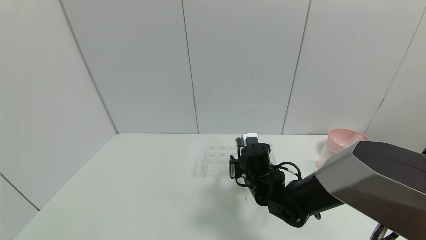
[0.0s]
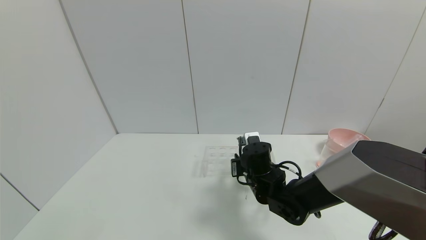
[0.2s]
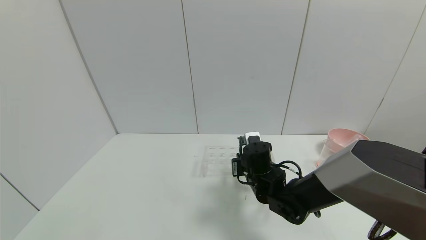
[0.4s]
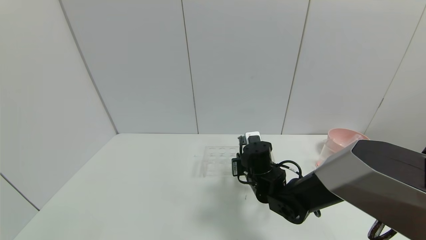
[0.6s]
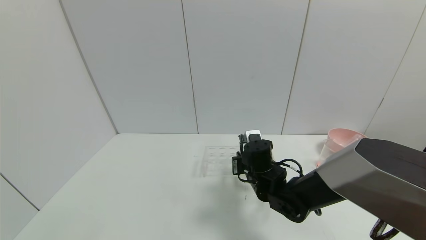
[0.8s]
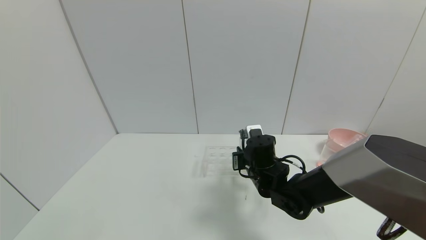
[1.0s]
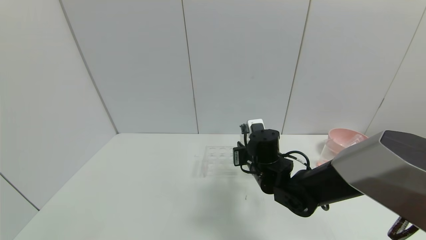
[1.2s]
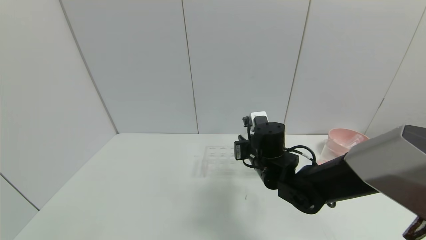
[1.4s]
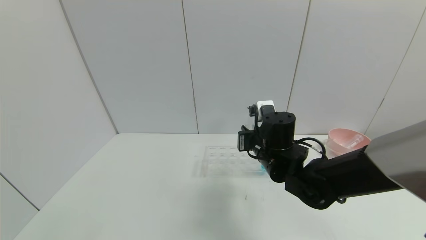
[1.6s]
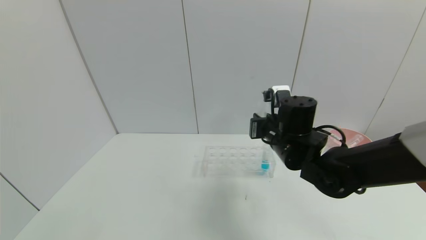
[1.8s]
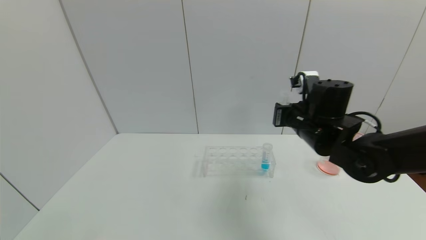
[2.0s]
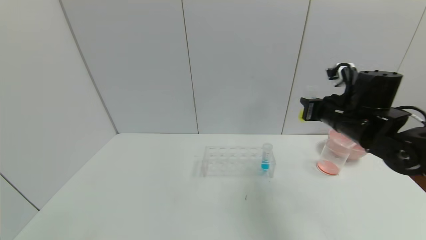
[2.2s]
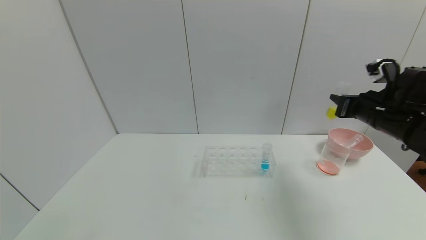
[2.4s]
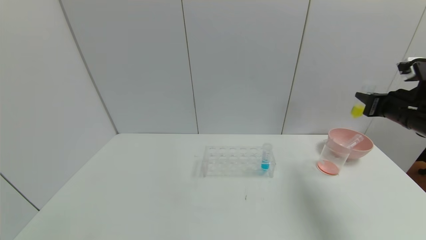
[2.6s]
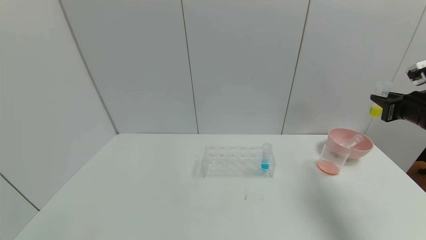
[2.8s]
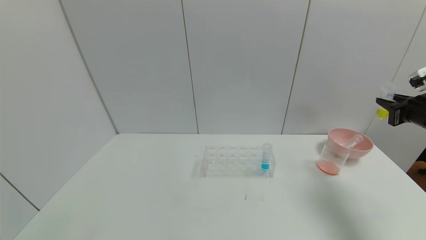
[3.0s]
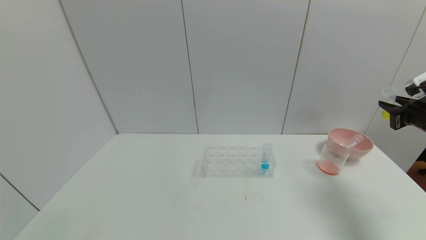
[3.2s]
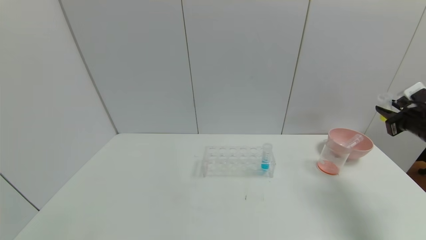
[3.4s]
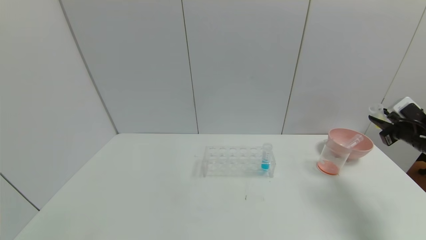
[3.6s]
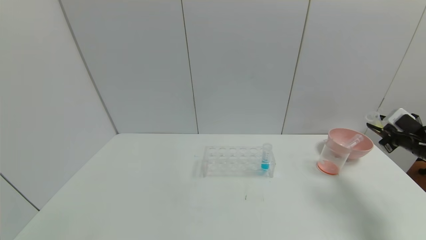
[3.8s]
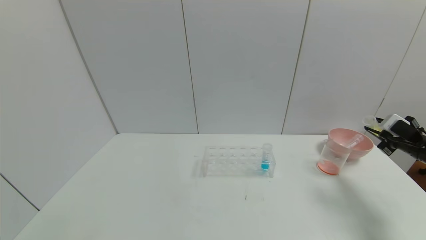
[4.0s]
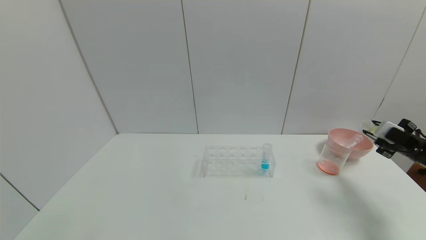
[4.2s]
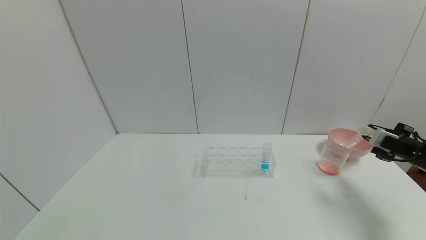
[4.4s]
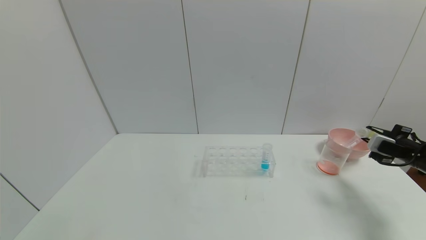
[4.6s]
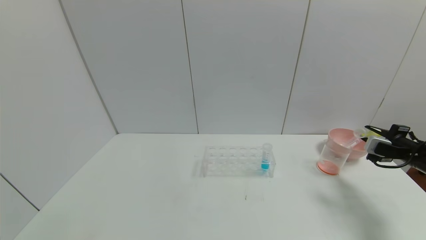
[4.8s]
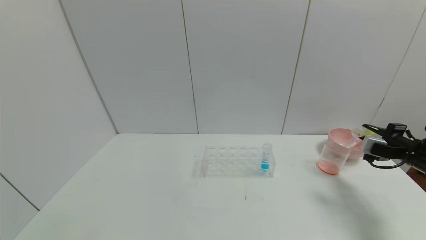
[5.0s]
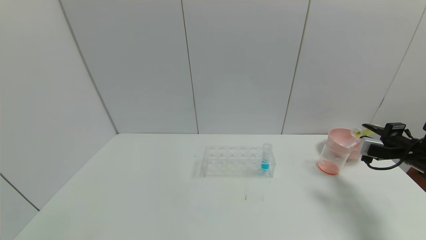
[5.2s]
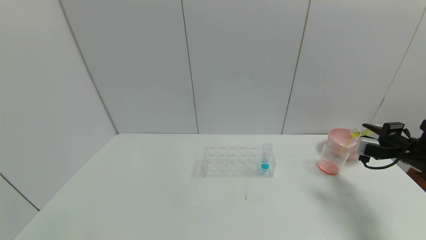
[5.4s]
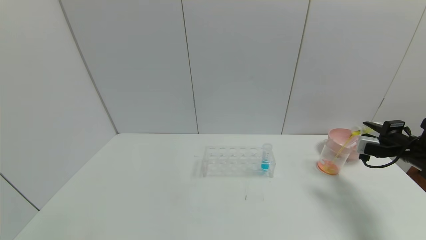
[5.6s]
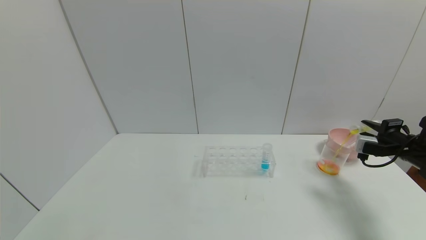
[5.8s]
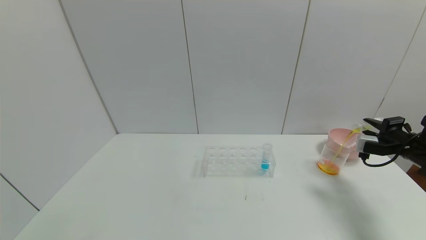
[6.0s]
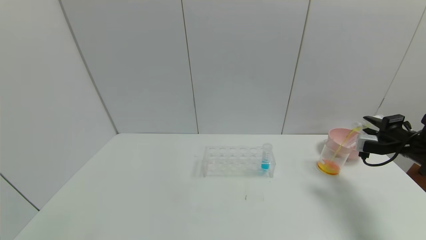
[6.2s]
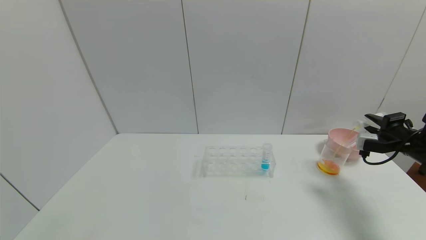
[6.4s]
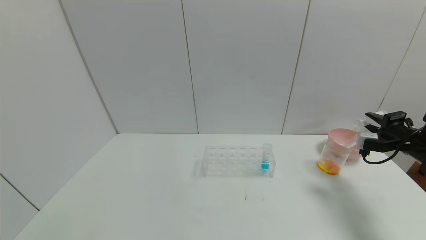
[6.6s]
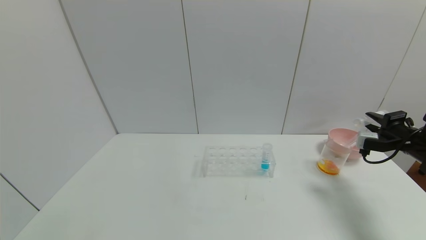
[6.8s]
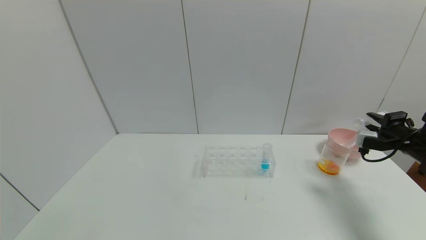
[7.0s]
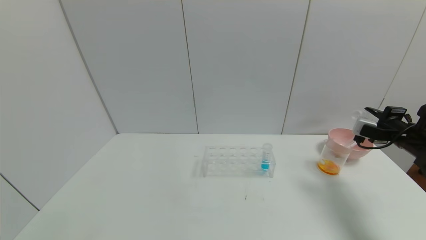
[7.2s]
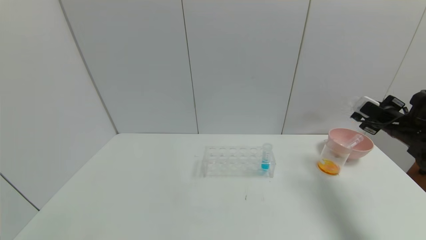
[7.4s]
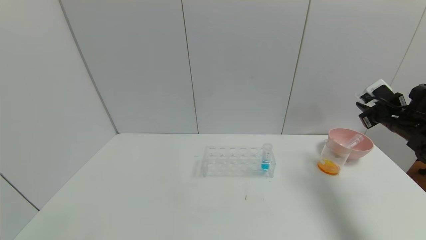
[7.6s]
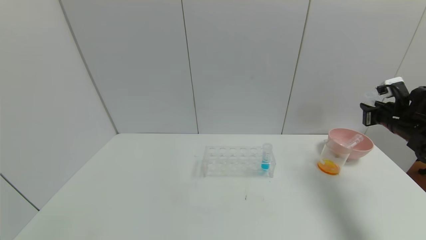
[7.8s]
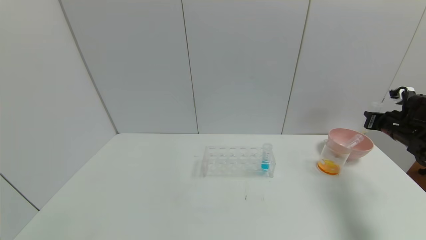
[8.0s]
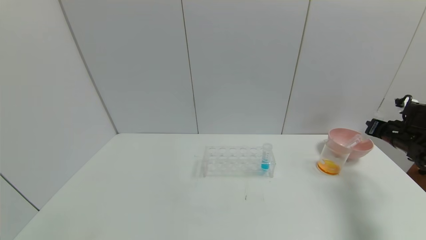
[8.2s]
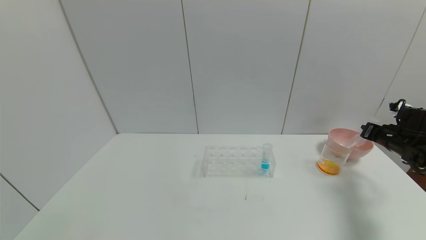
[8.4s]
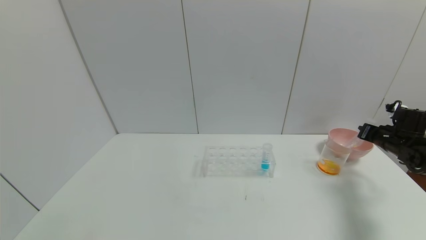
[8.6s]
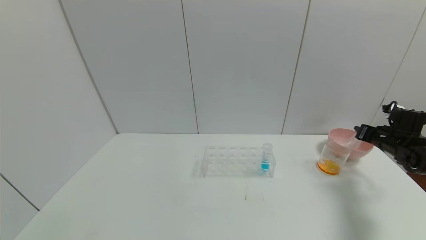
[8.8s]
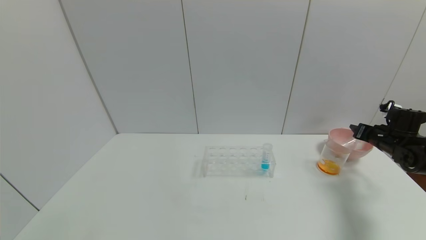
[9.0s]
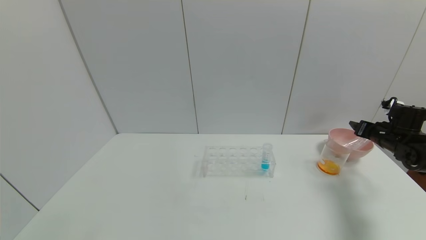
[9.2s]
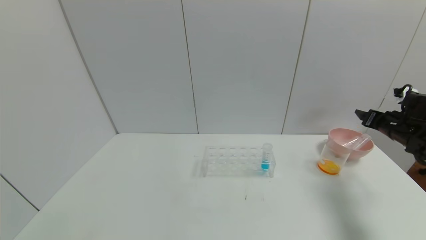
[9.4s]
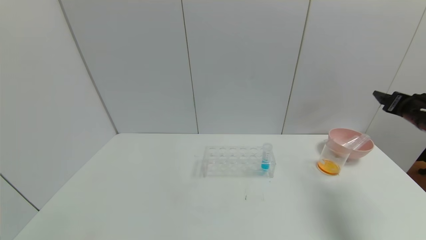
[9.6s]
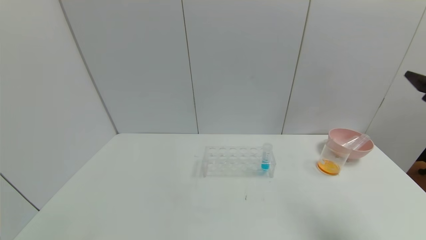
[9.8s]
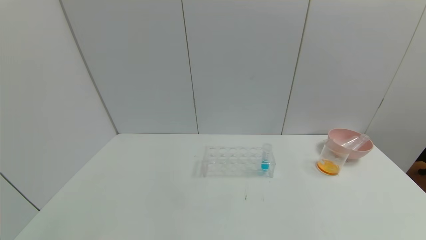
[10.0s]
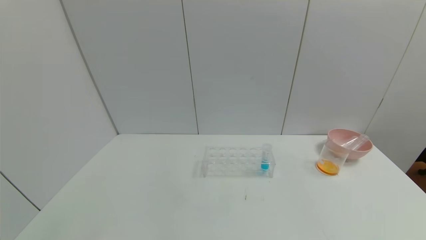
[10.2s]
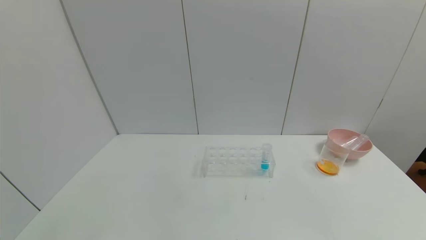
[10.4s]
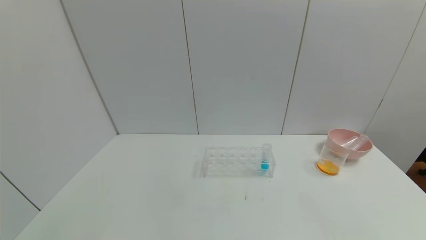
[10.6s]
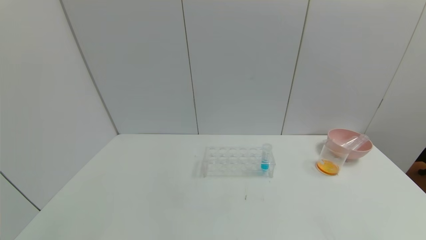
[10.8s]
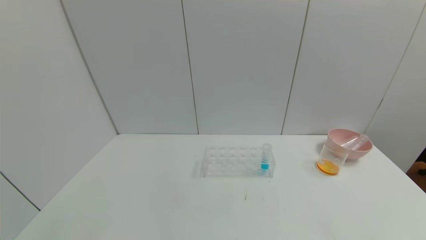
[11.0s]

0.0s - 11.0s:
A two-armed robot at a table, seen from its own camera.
Task of the whole recording: pick up the test tube with yellow pigment and the test tube with red pigment by grippers and pour them into the beaker.
Step, 0.4s - 7.0s: Pour the yellow reagent into the graduated cylinder with the right gripper.
Step, 7.2s - 9.0s: Place the test tube into the bowl with the right gripper.
0.0s - 1.6s: The right gripper moves upward, approximately 10 cm, and closes.
1.6s - 3.2s: The right gripper is displaced to the right by roughly 35 cm.
3.2s - 4.8s: The right gripper is displaced downward by some 10 cm.
6.2s - 7.8s: The right gripper changes place by approximately 5 cm.
7.8s - 9.4s: The right gripper opens.
9.4s - 11.0s: The right gripper shifts roughly 40 cm backward.
